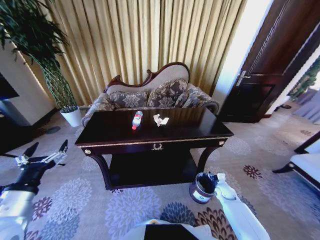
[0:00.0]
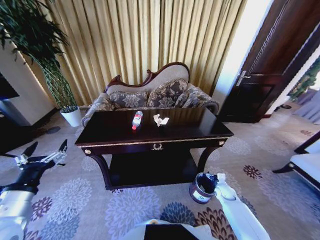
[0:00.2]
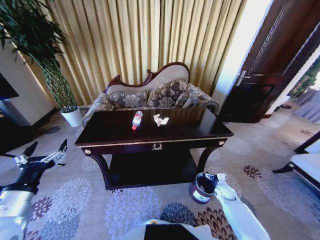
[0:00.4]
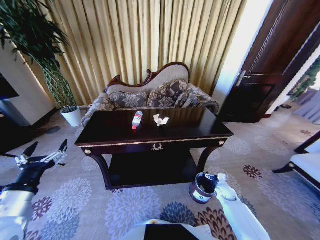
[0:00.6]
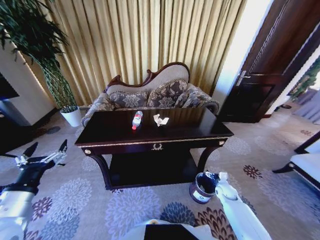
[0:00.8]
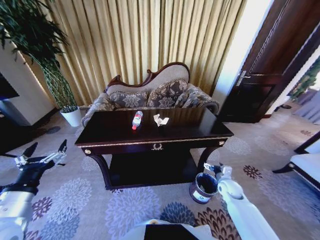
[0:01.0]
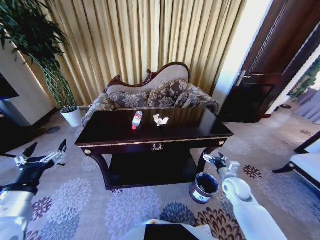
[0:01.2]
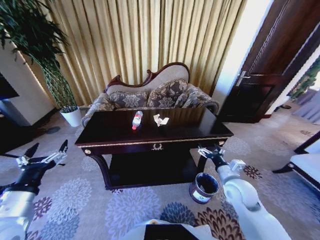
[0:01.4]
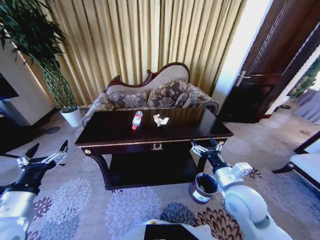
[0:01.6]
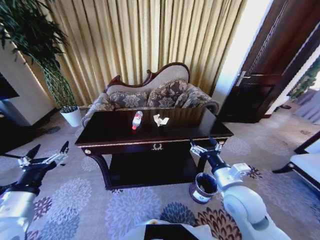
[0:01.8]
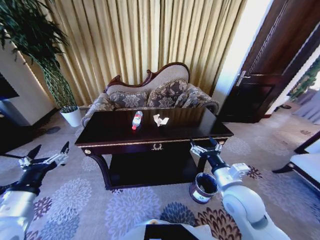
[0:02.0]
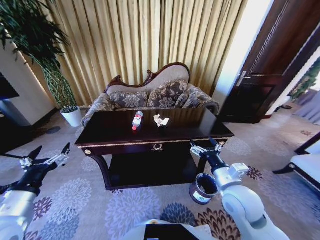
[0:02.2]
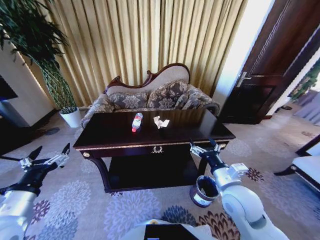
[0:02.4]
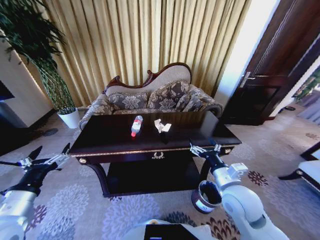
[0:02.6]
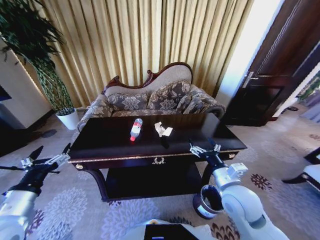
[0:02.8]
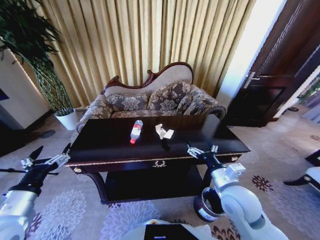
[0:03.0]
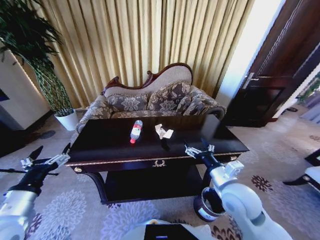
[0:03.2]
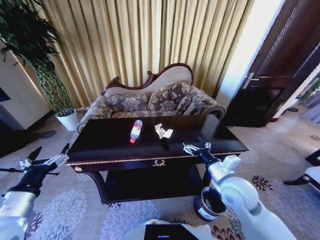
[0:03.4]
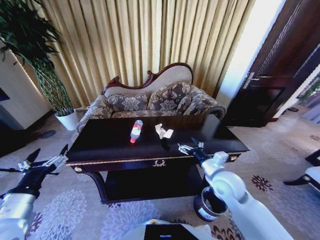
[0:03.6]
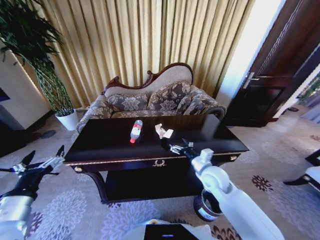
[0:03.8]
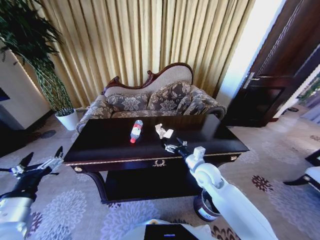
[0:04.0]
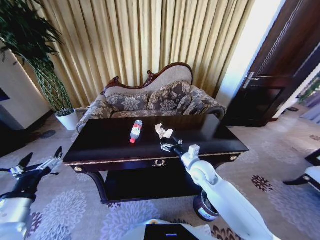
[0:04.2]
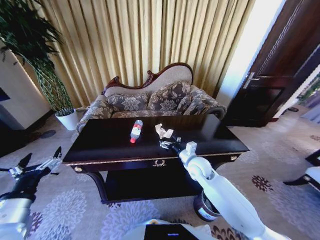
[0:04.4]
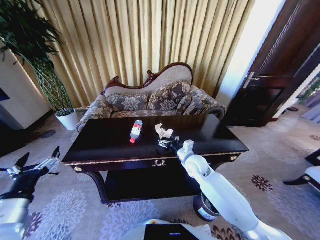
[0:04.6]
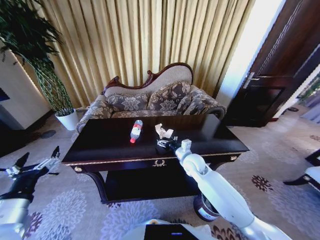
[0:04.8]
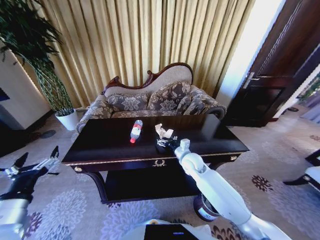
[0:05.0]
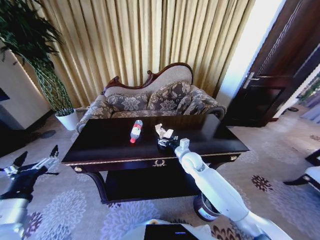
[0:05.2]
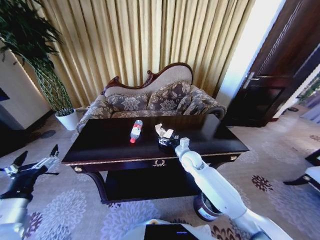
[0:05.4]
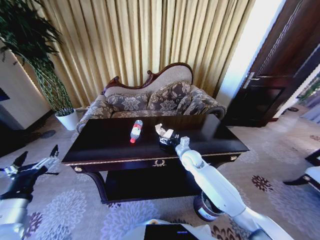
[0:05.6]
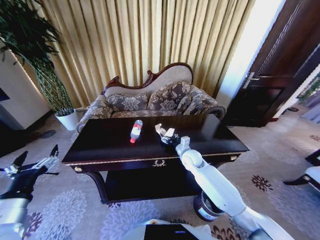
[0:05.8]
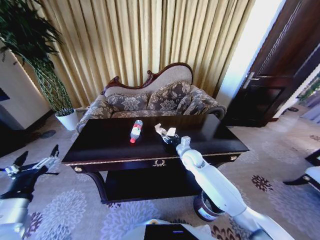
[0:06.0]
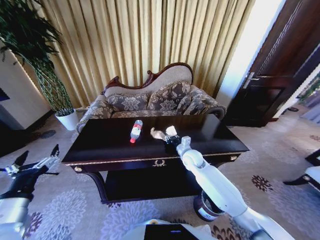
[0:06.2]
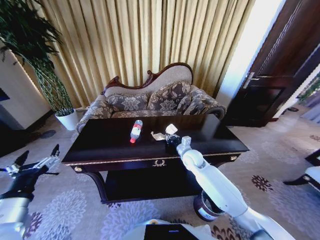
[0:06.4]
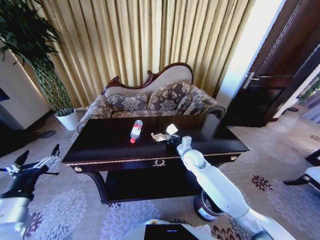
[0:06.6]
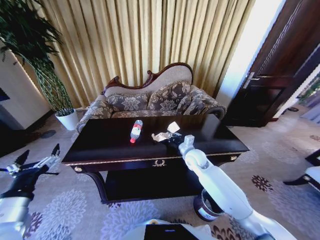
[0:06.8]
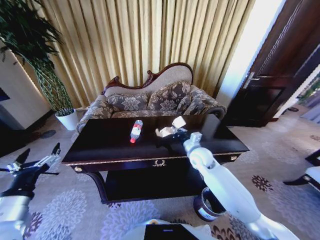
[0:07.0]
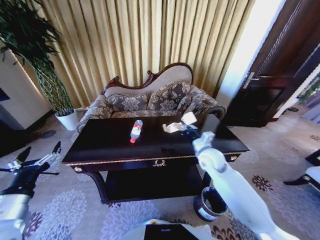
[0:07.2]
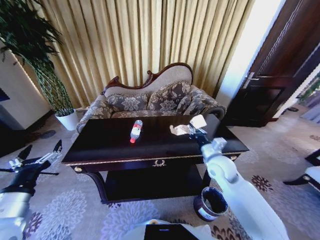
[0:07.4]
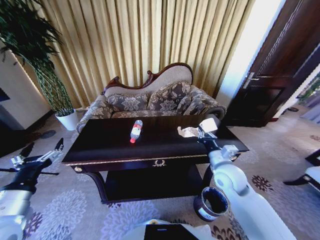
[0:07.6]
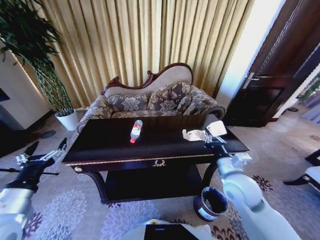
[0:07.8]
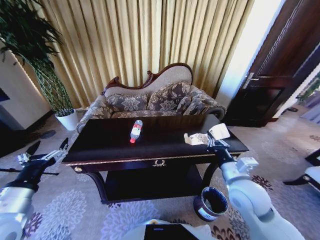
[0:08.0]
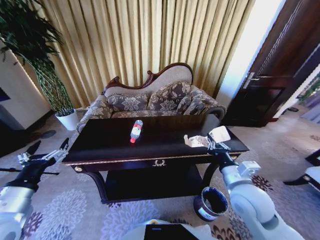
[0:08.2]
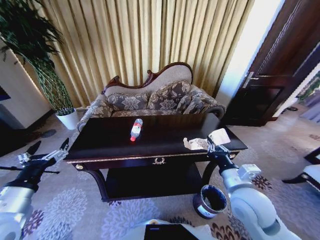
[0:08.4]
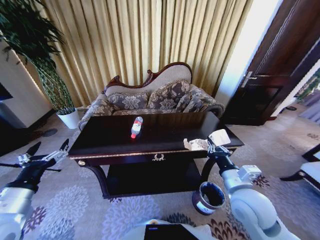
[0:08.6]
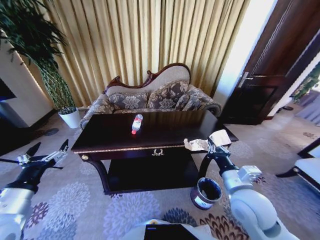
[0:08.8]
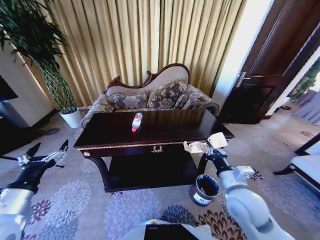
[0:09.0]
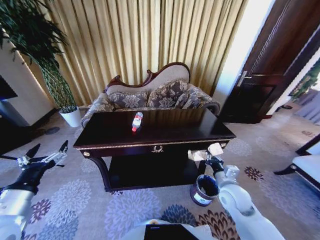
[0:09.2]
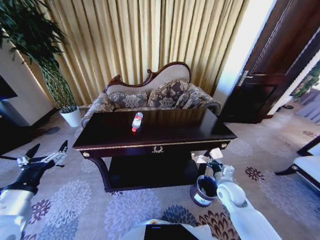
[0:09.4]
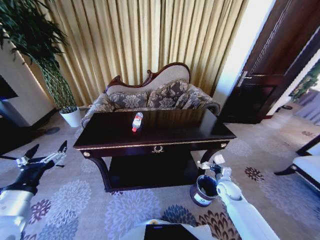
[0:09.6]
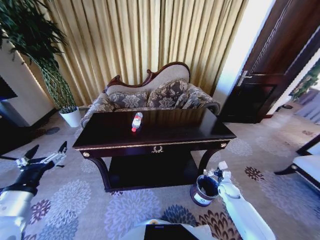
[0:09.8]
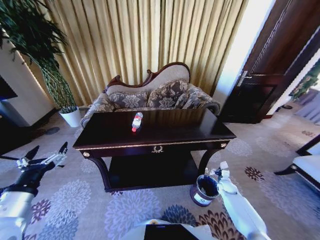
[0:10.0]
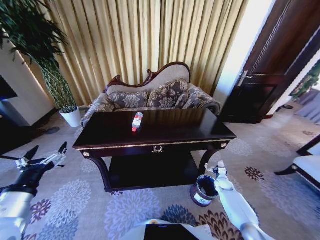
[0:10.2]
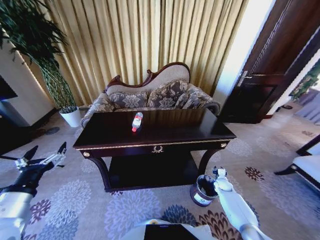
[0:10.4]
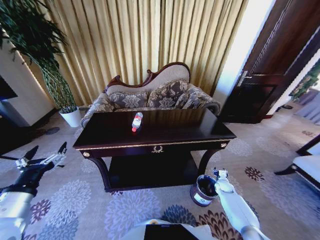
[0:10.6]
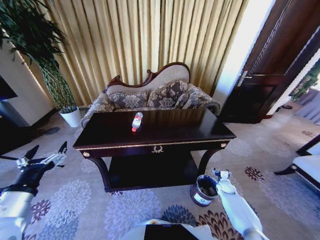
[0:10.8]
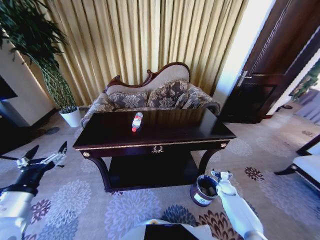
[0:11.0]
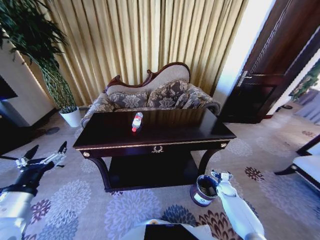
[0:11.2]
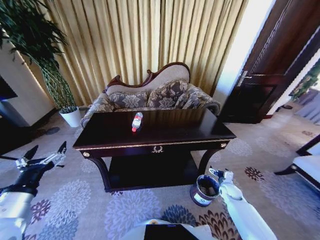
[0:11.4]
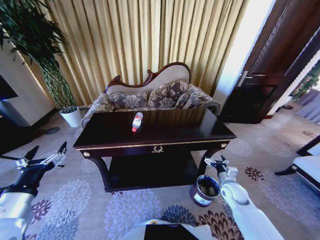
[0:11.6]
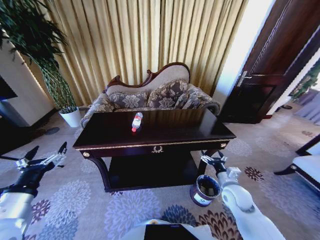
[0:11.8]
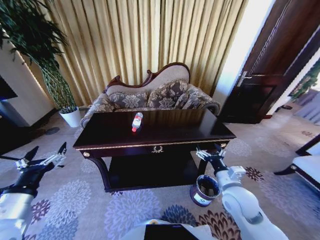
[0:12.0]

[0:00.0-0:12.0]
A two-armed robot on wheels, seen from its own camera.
Task of the whole recording: Move to the front of the table and place the trash on the table into the trash bin.
0:00.0 to 0:01.6: The right gripper travels upward and to the left by some 35 cm, and opens up.
0:03.0 to 0:04.4: The right gripper heads forward, covering approximately 15 cm.
0:04.4 to 0:06.0: The right gripper travels forward by about 5 cm, and closes up.
0:06.0 to 0:07.6: The right gripper heads backward, upward and to the right, covering roughly 15 cm, and closes.
0:07.6 to 0:09.0: The right gripper goes some 10 cm backward.
0:09.0 to 0:10.4: The right gripper travels downward, to the right and forward by about 40 cm.
0:10.4 to 0:12.0: The right gripper heads upward, to the left and backward, covering about 35 cm, and opens up.

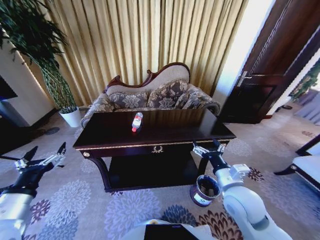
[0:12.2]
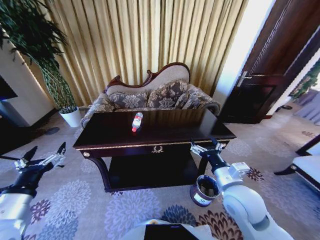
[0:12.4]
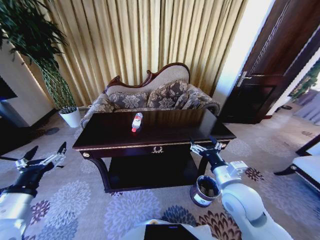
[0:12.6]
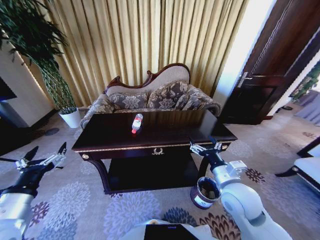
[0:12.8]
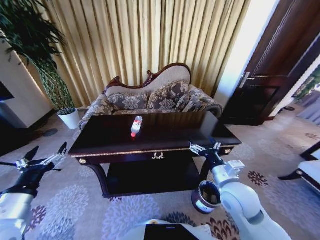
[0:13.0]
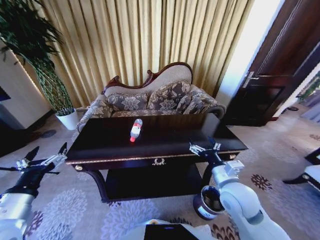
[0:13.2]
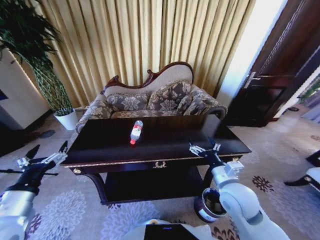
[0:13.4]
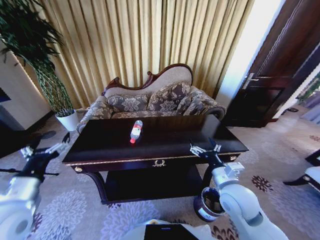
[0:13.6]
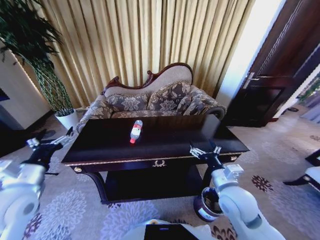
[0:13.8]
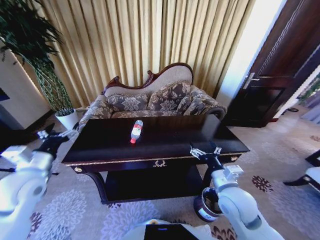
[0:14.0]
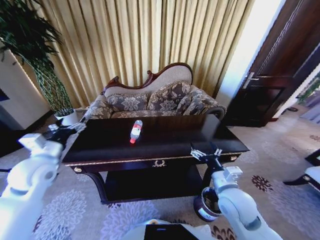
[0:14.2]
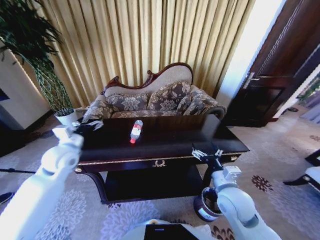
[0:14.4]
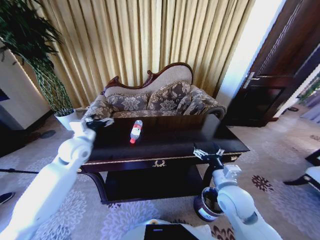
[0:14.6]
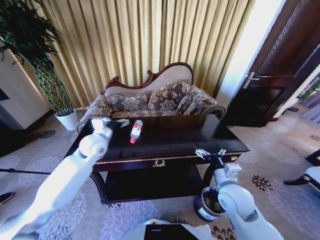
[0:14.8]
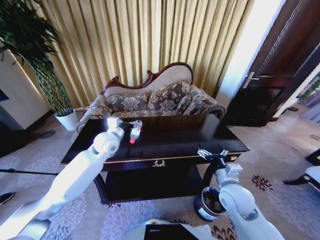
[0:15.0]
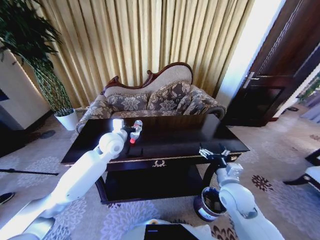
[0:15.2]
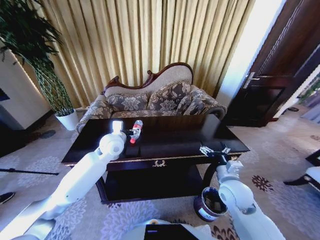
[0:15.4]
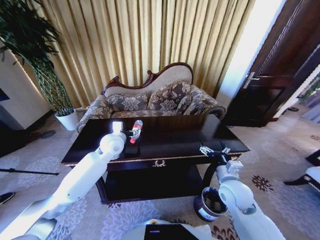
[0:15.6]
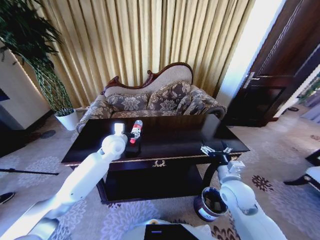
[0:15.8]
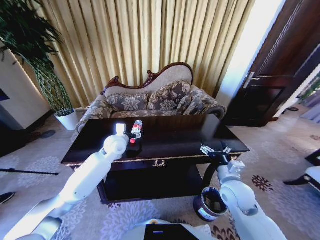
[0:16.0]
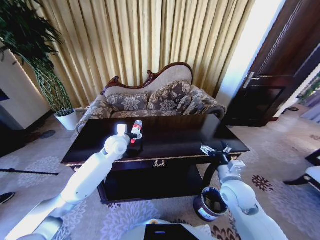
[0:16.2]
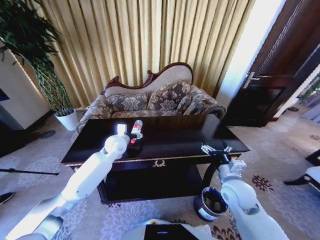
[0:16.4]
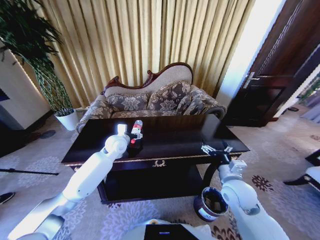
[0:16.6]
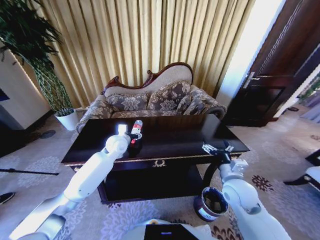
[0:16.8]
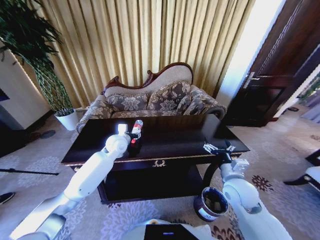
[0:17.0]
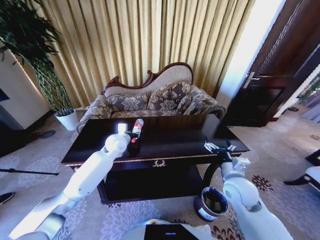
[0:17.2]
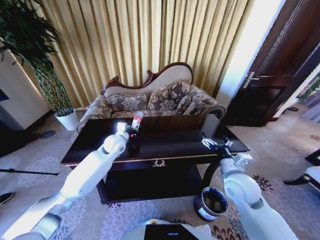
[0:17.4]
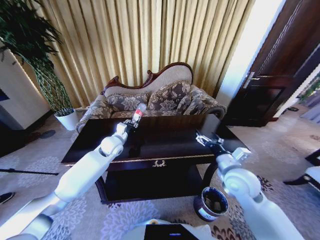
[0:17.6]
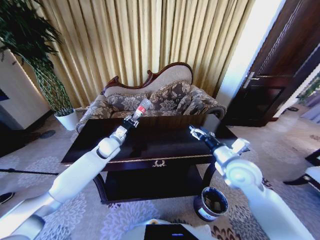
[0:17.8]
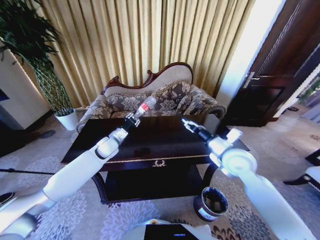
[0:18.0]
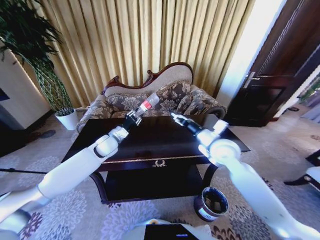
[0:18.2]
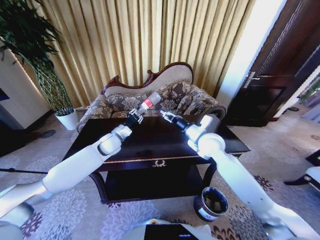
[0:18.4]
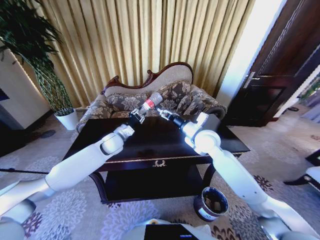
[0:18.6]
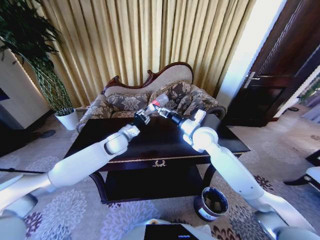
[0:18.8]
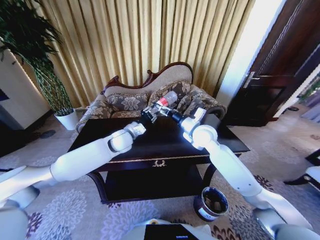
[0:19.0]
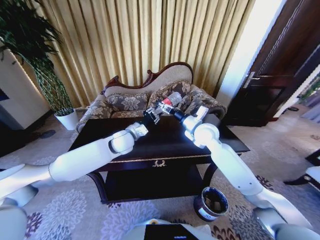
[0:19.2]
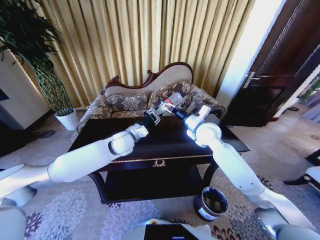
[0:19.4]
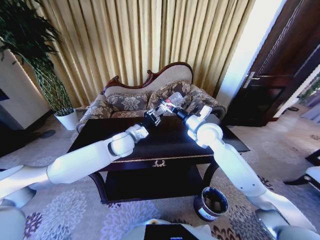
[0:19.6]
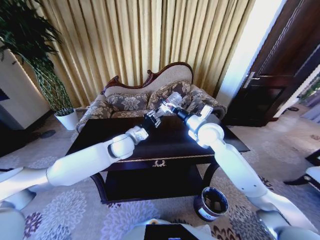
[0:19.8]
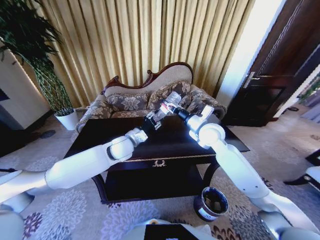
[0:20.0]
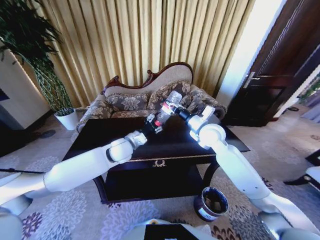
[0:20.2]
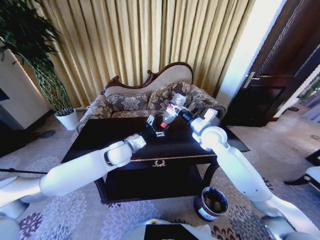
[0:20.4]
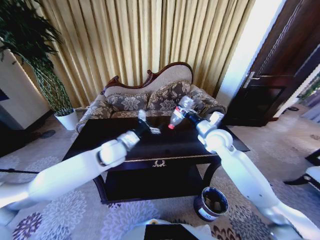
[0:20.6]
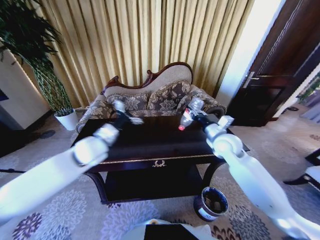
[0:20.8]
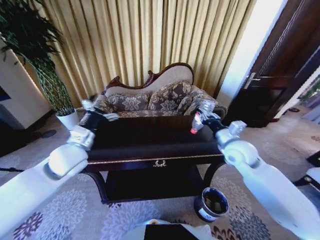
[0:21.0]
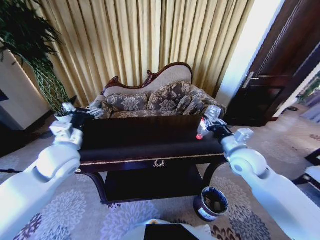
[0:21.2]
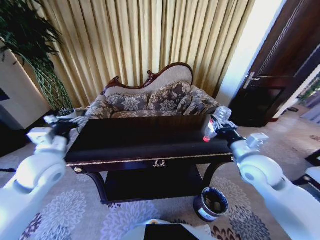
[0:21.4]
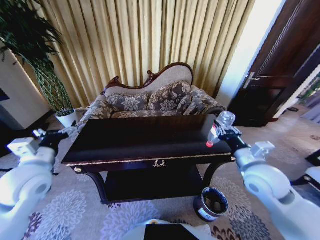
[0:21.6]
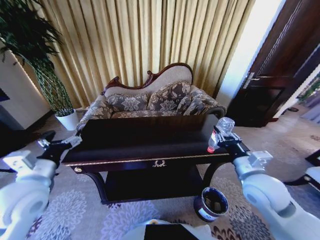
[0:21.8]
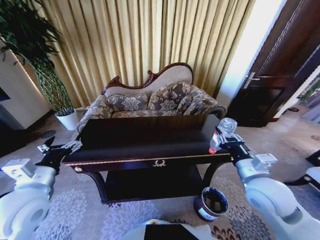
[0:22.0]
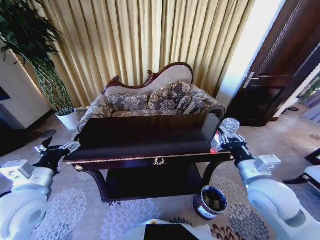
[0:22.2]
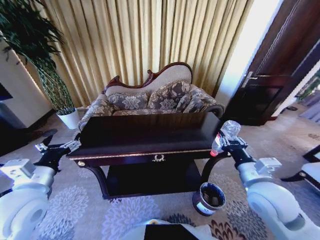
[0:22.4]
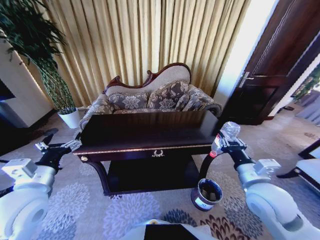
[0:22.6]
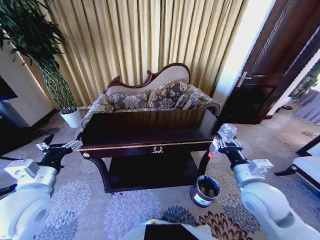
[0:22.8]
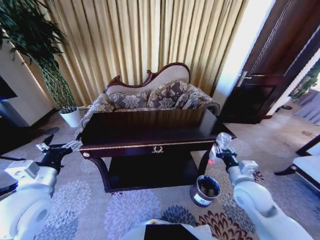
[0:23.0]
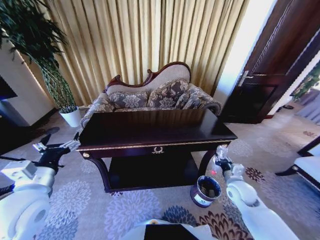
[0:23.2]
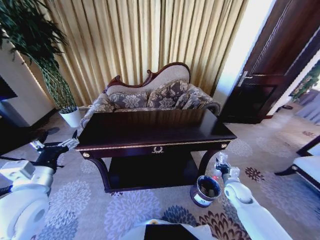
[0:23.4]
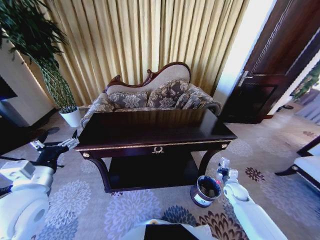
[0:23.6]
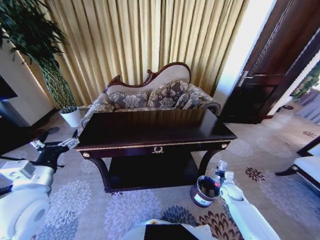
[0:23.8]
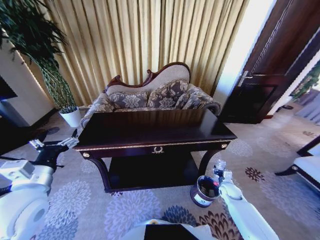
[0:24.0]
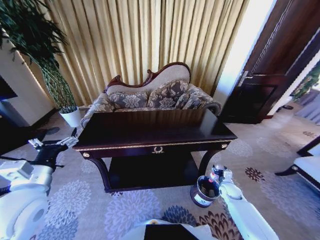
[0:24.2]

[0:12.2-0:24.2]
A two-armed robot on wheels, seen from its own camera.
Task of the whole recording: Move to the front of the table and place the trash on the table into the trash bin.
0:12.2 to 0:13.8: The left gripper moves forward, some 10 cm.
0:13.8 to 0:15.2: The right gripper changes place by approximately 5 cm, while the left gripper heads forward and to the right, covering about 30 cm.
0:15.2 to 0:16.6: The left gripper ends up some 5 cm from where it was.
0:16.6 to 0:18.2: The right gripper shifts about 15 cm forward and upward. Meanwhile the left gripper closes up.
0:18.2 to 0:19.8: The right gripper heads forward, covering roughly 5 cm, and closes; the left gripper is displaced to the right by roughly 10 cm.
0:19.8 to 0:21.2: The right gripper goes roughly 15 cm backward and to the right. Meanwhile the left gripper heads to the left, backward and upward, covering about 20 cm, and opens its fingers.
0:21.2 to 0:22.6: The grippers both shift backward by about 10 cm.
0:22.6 to 0:24.2: The right gripper travels downward by approximately 30 cm, and opens its fingers.
